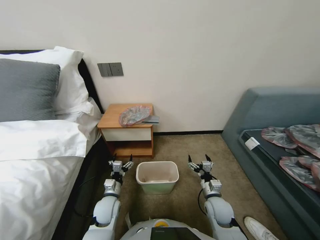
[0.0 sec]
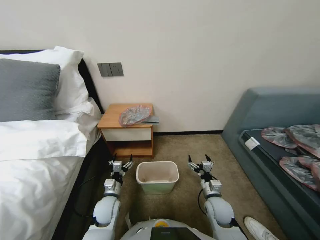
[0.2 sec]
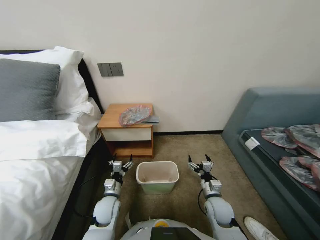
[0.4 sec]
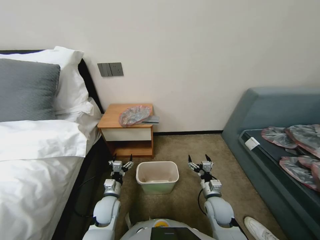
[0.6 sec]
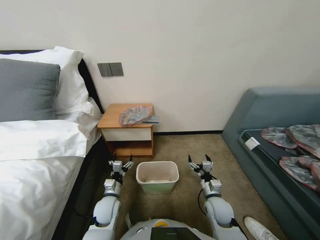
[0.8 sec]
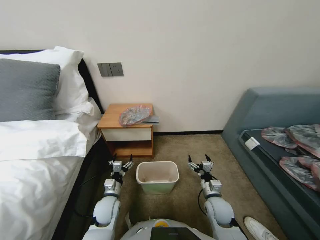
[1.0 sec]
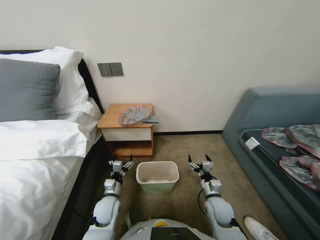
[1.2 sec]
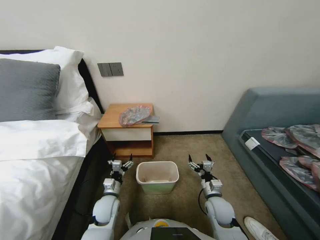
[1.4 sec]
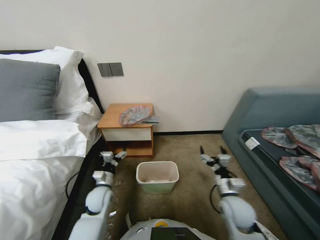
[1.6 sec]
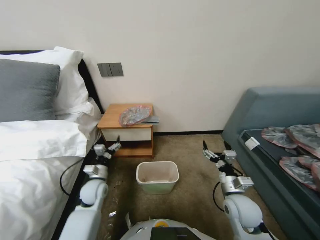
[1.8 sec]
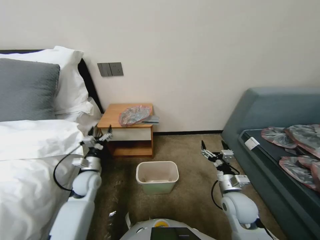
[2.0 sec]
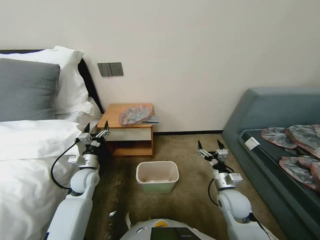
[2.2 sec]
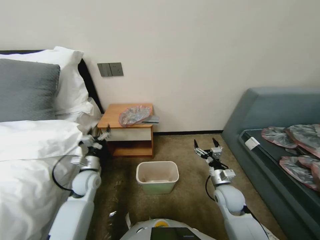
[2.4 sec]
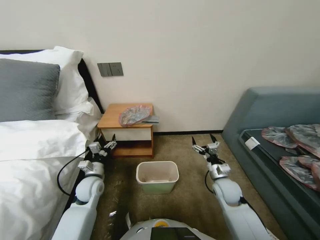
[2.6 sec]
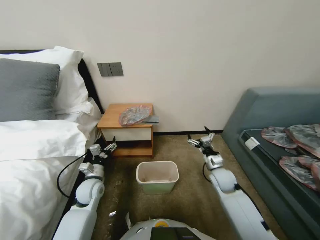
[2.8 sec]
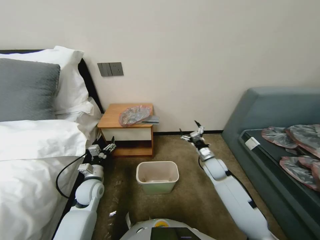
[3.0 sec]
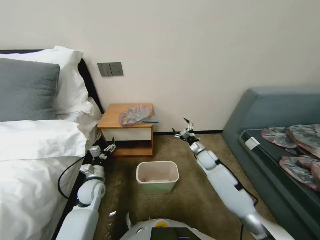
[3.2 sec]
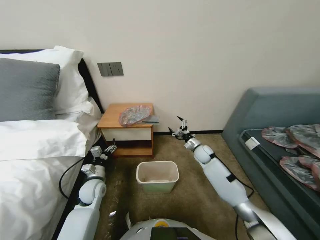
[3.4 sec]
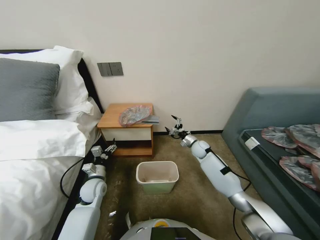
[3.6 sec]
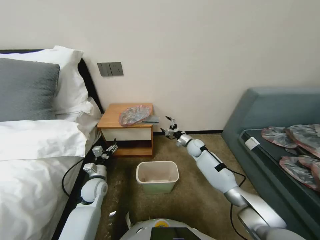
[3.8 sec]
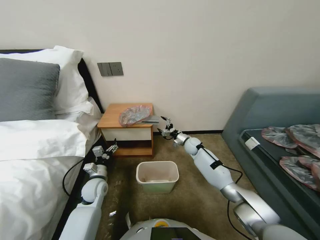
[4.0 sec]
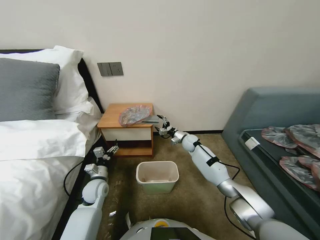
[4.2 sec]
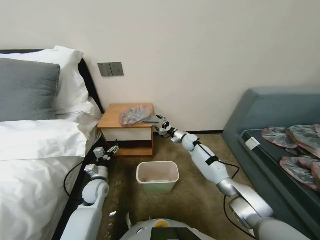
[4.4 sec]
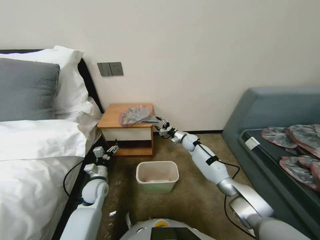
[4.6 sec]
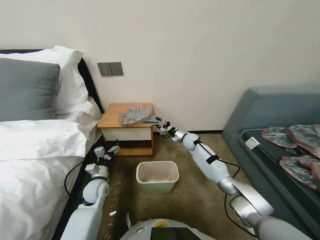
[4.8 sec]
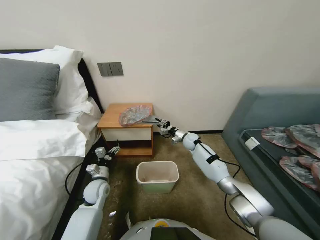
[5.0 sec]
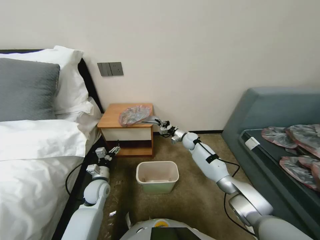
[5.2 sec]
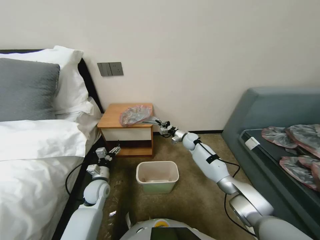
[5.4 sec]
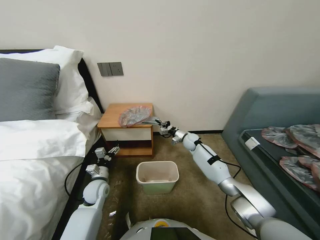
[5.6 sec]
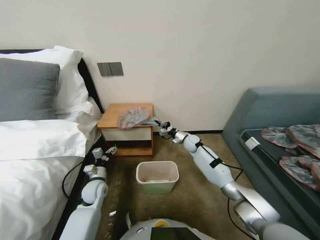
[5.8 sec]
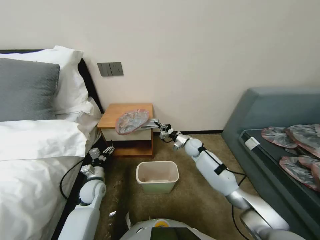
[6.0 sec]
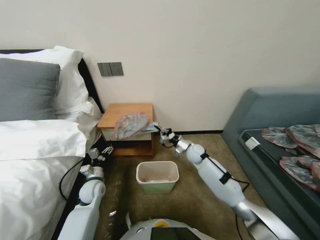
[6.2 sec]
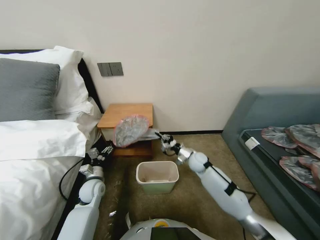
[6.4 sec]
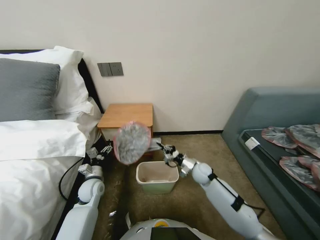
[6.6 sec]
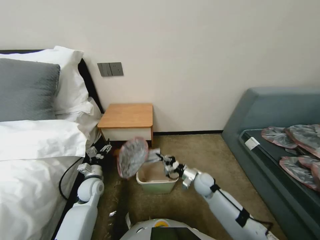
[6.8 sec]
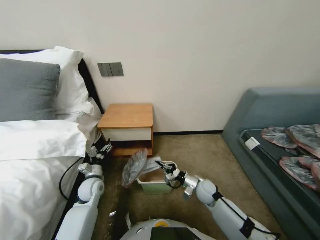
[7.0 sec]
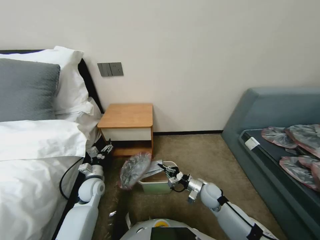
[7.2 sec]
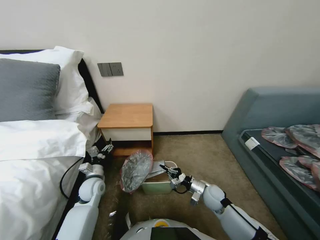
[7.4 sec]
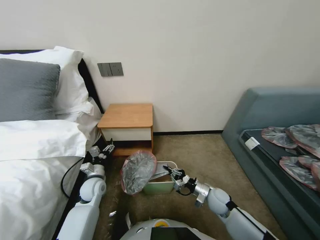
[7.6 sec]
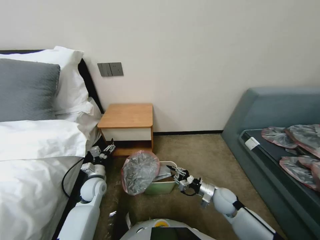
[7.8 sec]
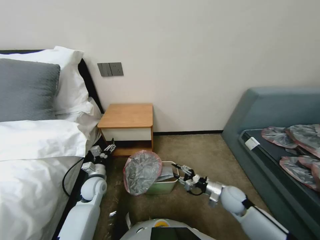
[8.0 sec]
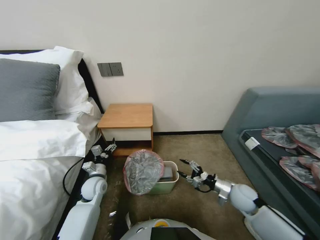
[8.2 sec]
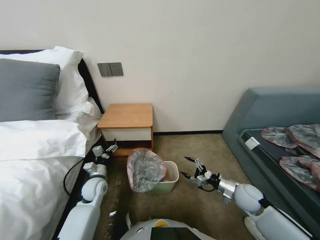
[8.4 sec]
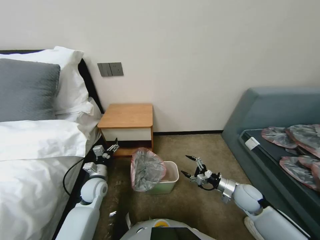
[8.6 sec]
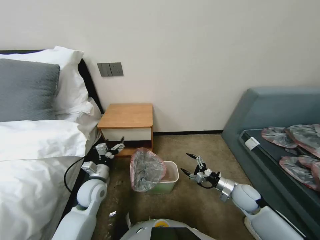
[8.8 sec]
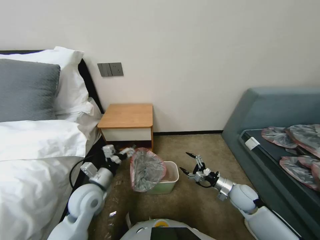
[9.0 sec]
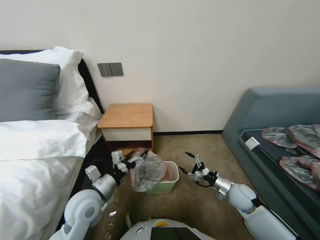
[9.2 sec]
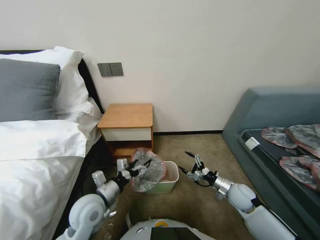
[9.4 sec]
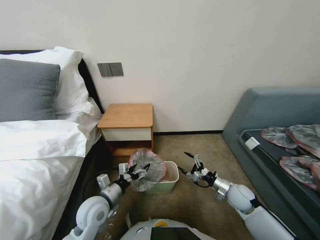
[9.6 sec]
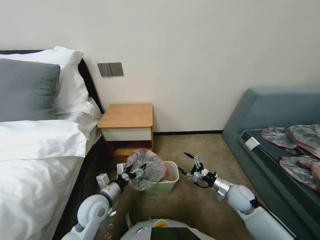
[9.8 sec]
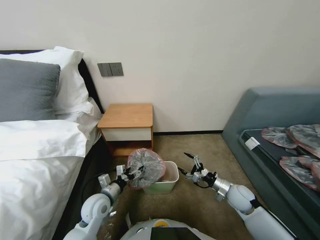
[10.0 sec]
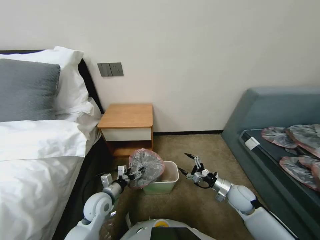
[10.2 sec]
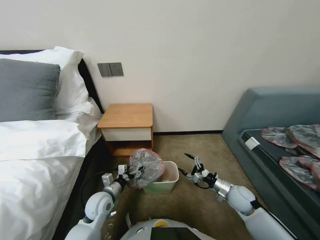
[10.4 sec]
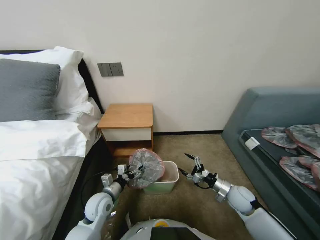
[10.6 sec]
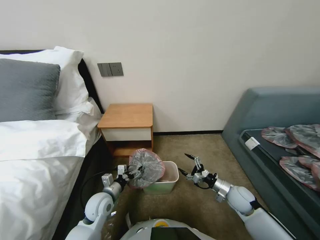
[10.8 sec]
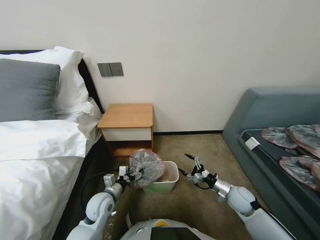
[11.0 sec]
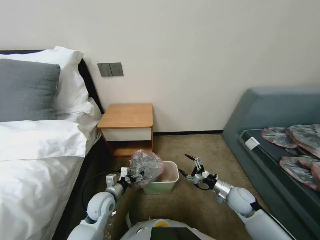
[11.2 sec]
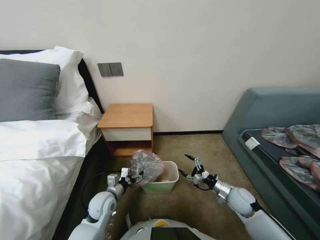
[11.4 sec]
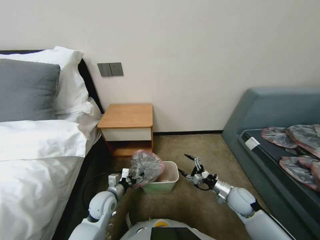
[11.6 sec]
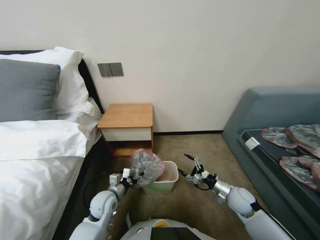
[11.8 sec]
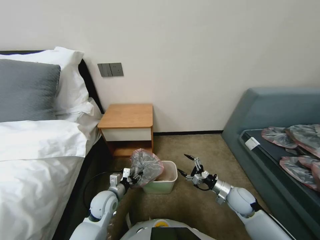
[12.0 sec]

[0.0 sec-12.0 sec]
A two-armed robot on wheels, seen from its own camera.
Task of the whole recording: Pick up the garbage bag from the table and place it over the trash can.
1.6 sec to 3.0 sec: The left gripper is displaced to the left by approximately 5 cm; the right gripper travels forward by approximately 15 cm.
3.0 sec to 4.4 sec: The right gripper shifts roughly 20 cm forward and to the left.
4.4 sec to 6.0 sec: The right gripper closes.
6.0 sec to 7.6 sec: The right gripper is displaced backward by about 25 cm.
7.6 sec to 9.0 sec: The right gripper goes some 10 cm to the right and upward, and opens its fingers. Meanwhile the left gripper heads upward, covering roughly 10 cm.
9.0 sec to 10.4 sec: The left gripper shifts approximately 5 cm downward.
10.4 sec to 12.0 sec: The left gripper closes up.

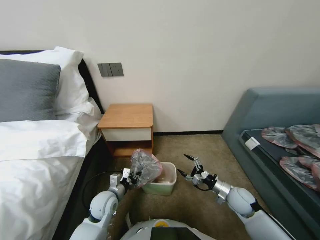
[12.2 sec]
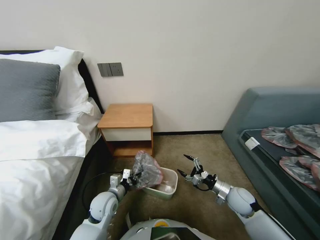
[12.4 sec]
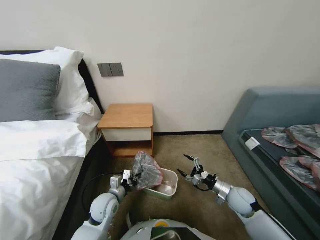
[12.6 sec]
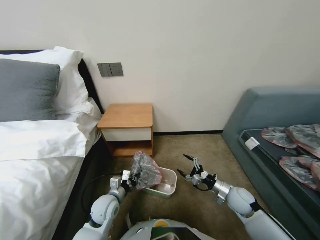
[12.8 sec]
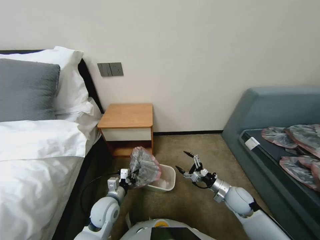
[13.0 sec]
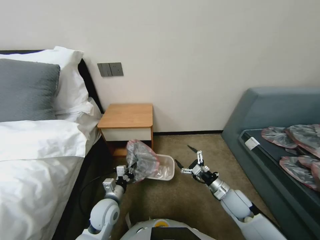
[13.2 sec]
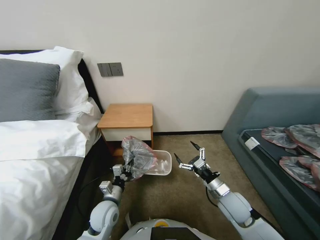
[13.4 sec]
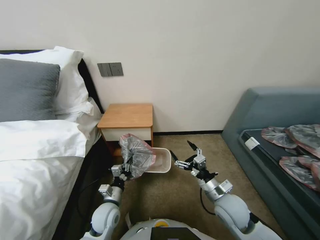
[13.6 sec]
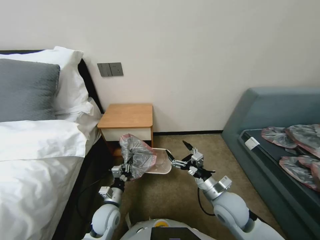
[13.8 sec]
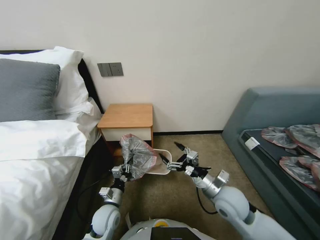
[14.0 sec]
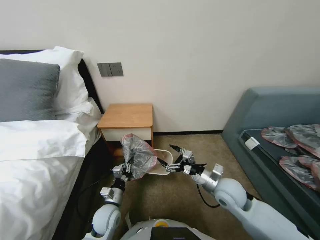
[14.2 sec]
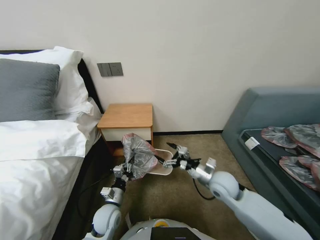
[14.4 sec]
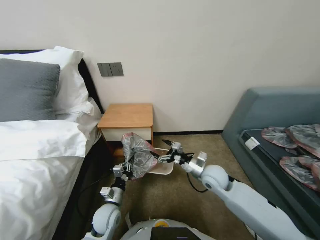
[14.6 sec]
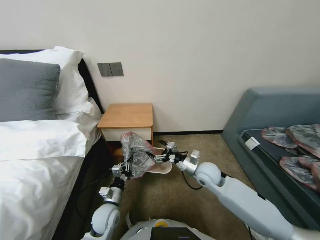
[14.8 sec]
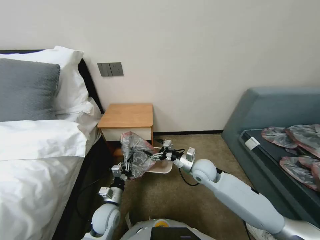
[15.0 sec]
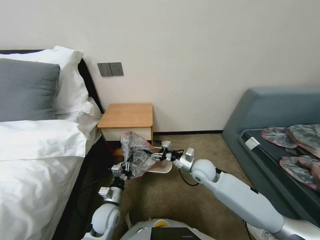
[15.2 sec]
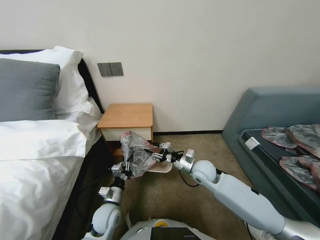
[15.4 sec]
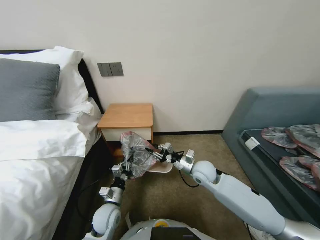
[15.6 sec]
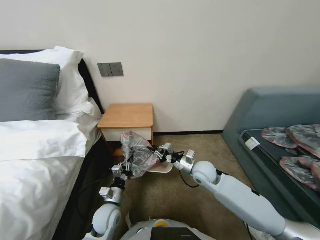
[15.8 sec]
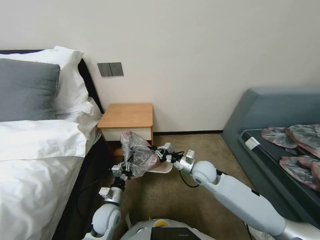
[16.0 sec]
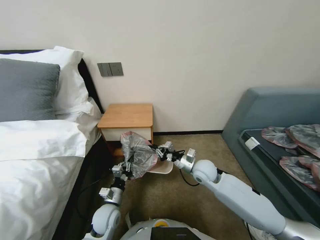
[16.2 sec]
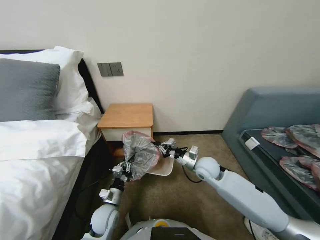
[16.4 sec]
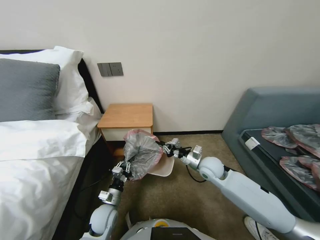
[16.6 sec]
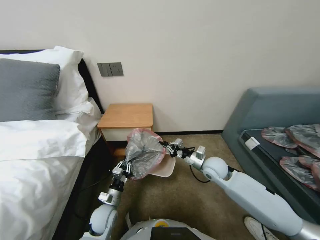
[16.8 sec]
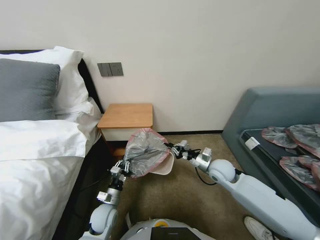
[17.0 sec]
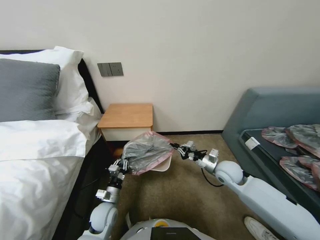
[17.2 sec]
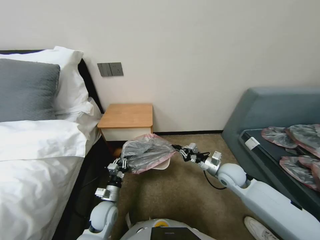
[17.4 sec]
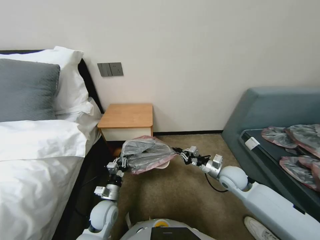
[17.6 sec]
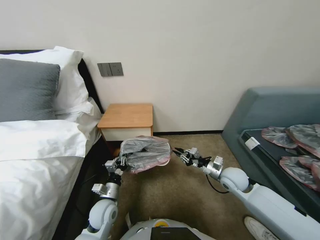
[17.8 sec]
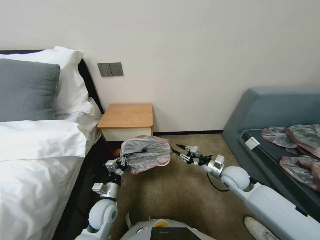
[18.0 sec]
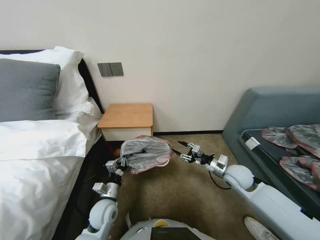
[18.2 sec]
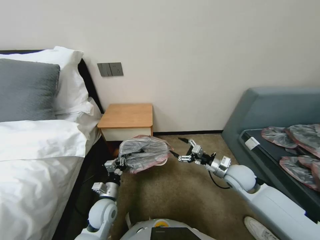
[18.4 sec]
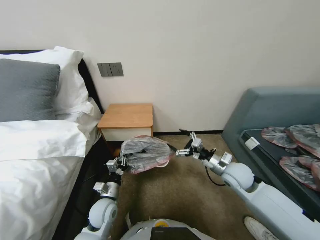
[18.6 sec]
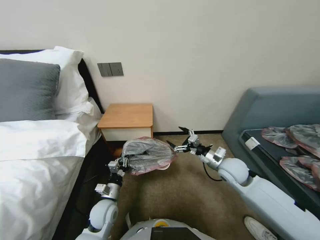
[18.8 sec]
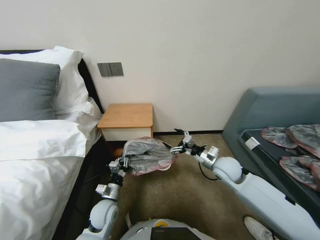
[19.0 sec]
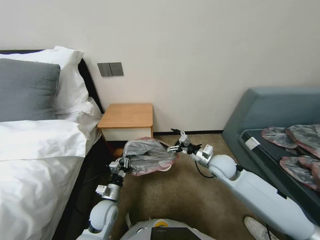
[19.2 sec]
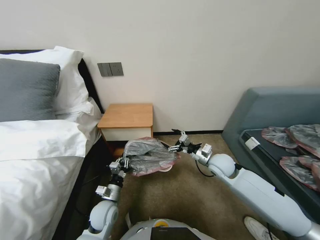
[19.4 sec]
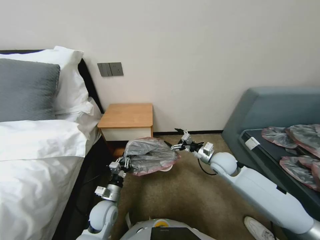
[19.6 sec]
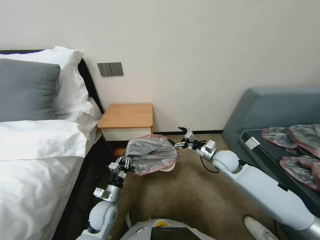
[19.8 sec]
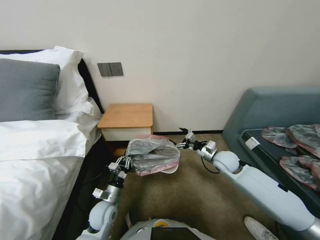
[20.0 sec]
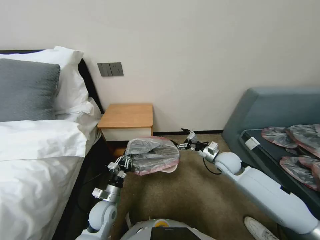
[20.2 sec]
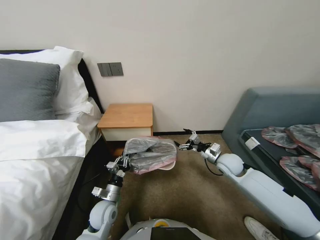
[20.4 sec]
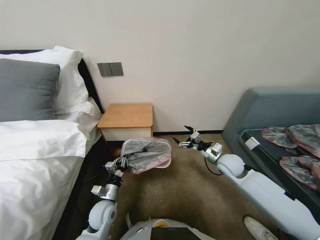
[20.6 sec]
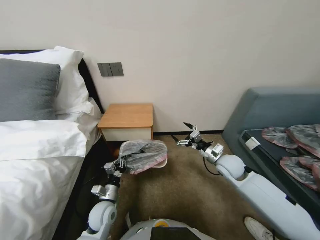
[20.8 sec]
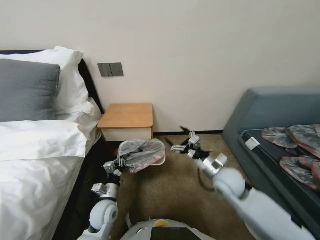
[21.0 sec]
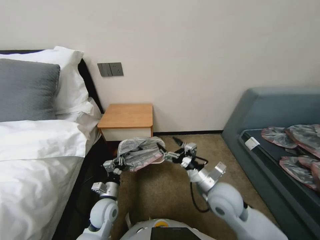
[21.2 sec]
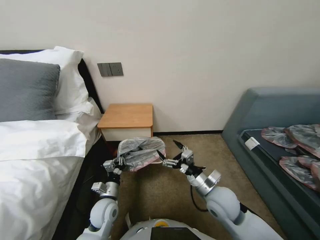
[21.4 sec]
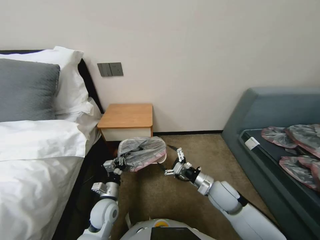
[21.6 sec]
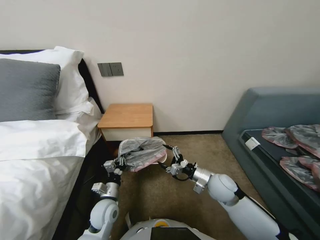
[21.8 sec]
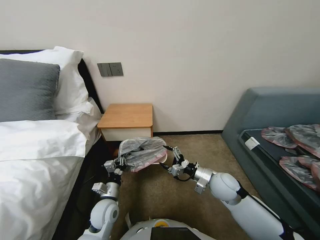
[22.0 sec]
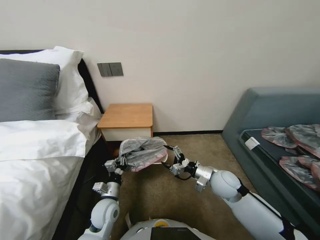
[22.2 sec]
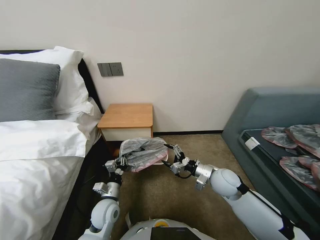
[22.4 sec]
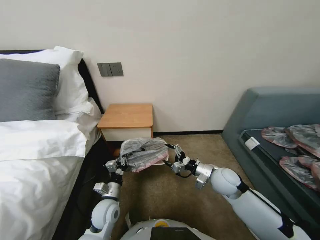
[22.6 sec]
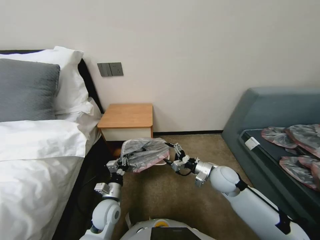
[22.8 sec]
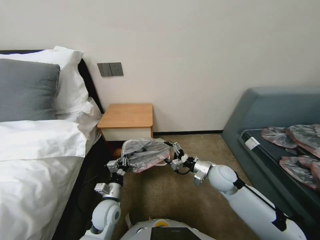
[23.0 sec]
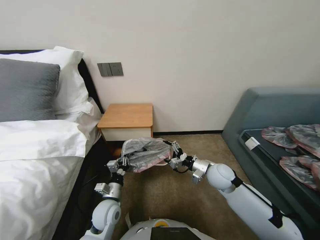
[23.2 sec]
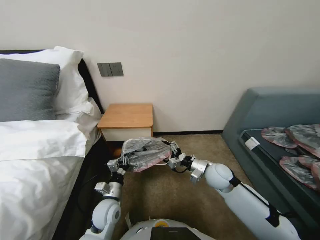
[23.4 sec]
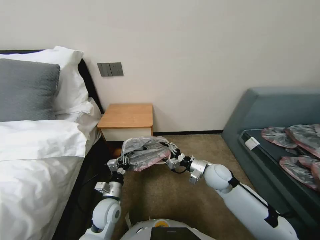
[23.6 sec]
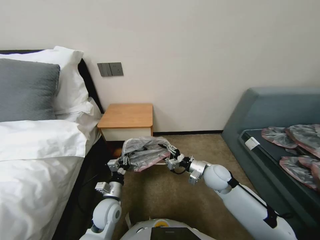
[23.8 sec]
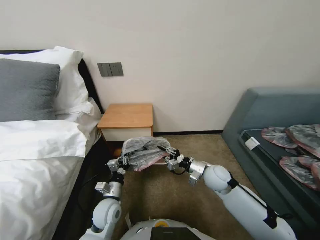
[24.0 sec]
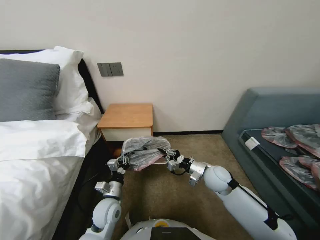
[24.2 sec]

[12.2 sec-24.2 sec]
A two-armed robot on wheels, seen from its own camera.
Task of the whole recording: Pick up the garbage bag from the table and place it over the trash can.
12.2 sec to 13.8 sec: The right gripper moves to the left, upward and backward, approximately 15 cm.
13.8 sec to 15.2 sec: The right gripper shifts approximately 15 cm forward.
15.2 sec to 16.6 sec: The right gripper closes.
16.6 sec to 18.2 sec: The right gripper is displaced to the right by about 10 cm, and opens its fingers.
18.2 sec to 19.8 sec: The right gripper moves forward, roughly 5 cm, and opens its fingers.
19.8 sec to 21.2 sec: The right gripper is displaced backward and to the left by approximately 15 cm.
21.2 sec to 22.6 sec: The right gripper shifts about 5 cm forward.
22.6 sec to 24.2 sec: The right gripper closes its fingers.
